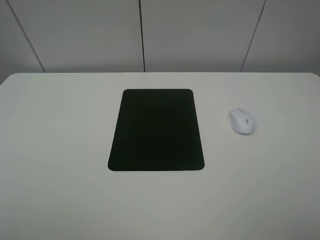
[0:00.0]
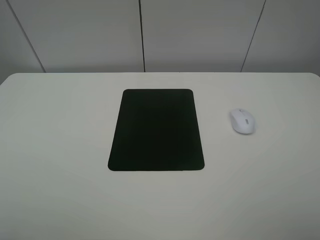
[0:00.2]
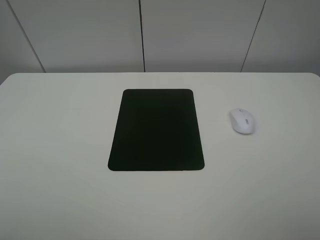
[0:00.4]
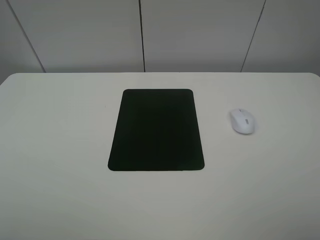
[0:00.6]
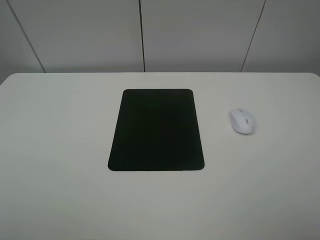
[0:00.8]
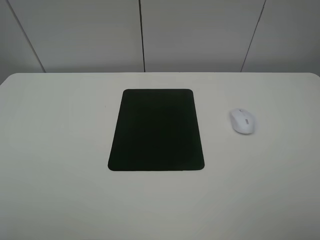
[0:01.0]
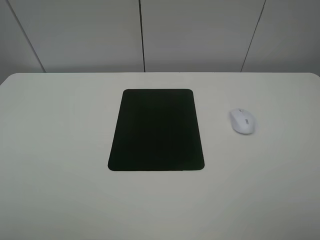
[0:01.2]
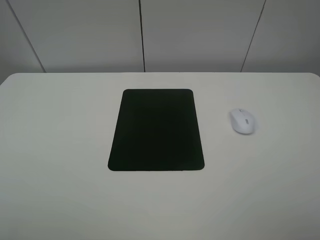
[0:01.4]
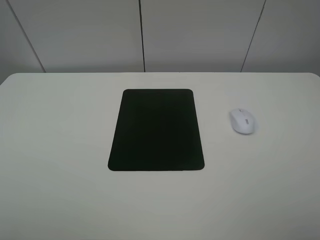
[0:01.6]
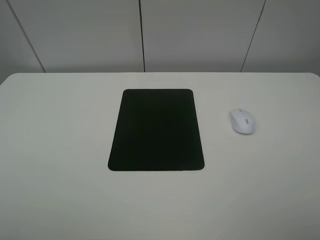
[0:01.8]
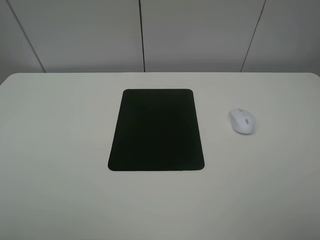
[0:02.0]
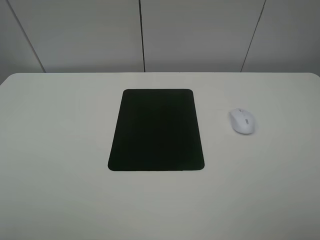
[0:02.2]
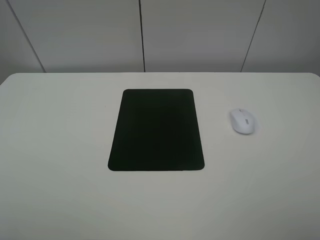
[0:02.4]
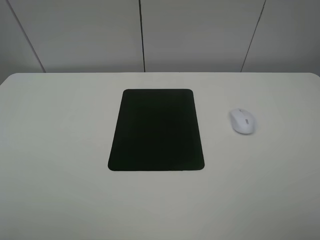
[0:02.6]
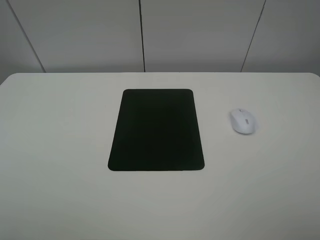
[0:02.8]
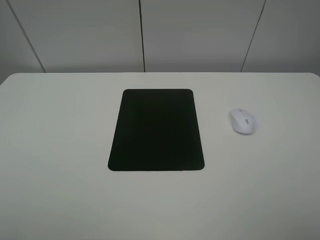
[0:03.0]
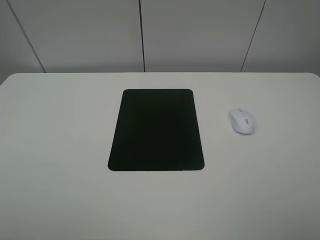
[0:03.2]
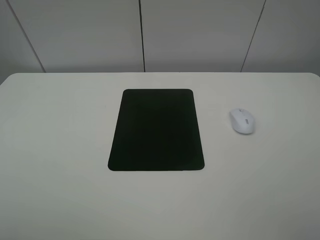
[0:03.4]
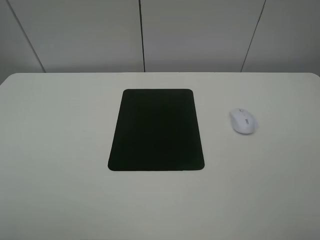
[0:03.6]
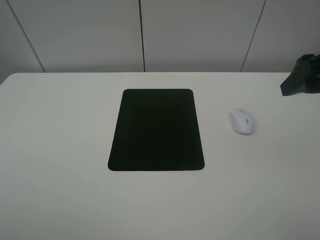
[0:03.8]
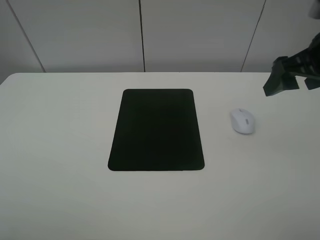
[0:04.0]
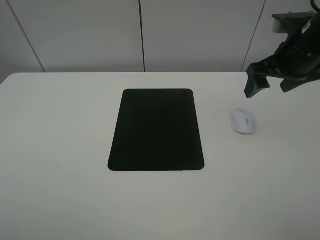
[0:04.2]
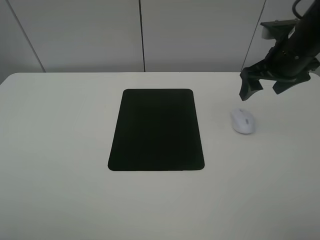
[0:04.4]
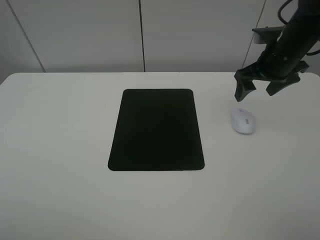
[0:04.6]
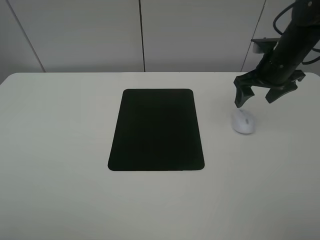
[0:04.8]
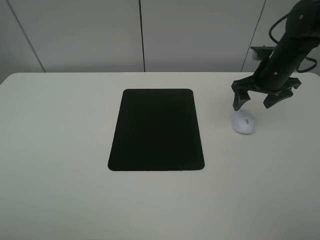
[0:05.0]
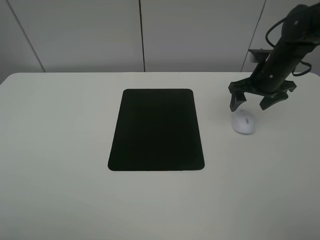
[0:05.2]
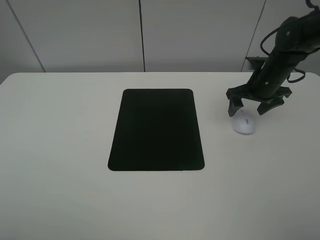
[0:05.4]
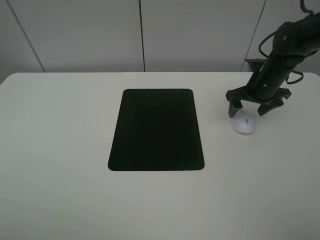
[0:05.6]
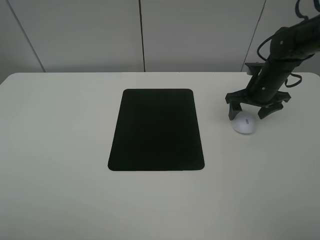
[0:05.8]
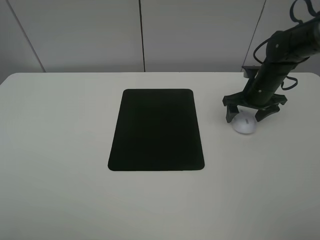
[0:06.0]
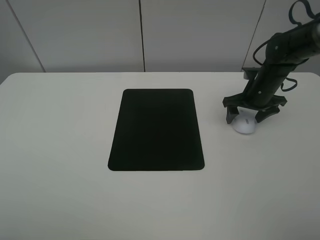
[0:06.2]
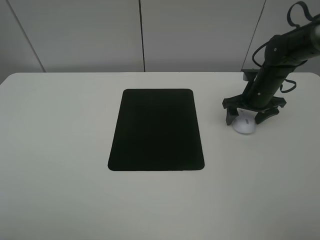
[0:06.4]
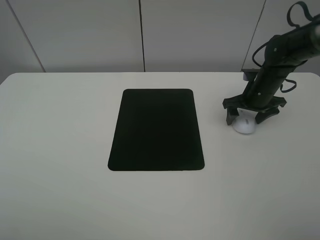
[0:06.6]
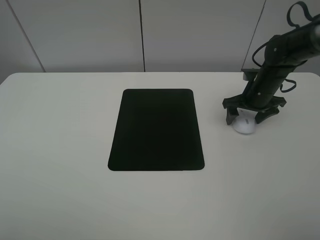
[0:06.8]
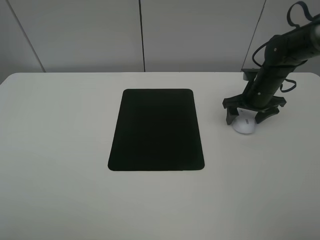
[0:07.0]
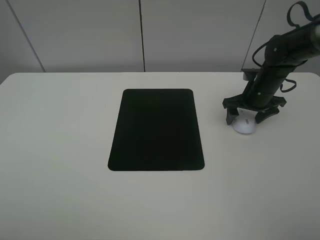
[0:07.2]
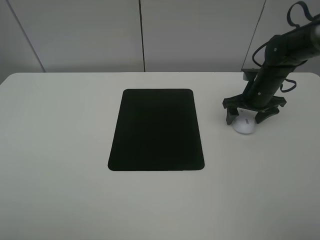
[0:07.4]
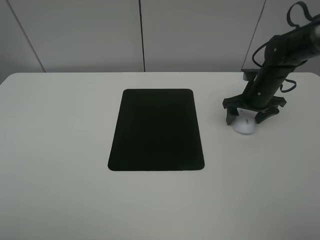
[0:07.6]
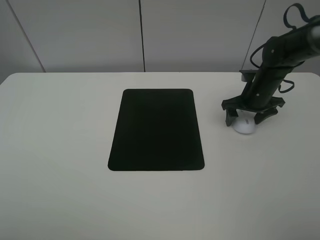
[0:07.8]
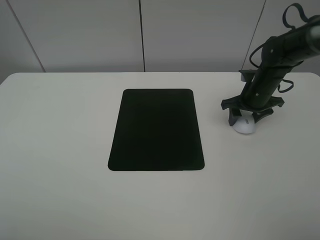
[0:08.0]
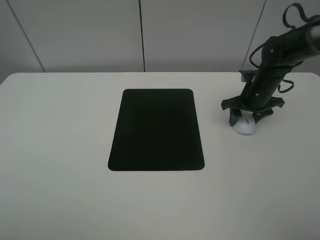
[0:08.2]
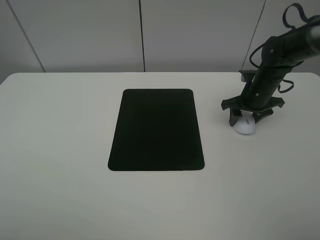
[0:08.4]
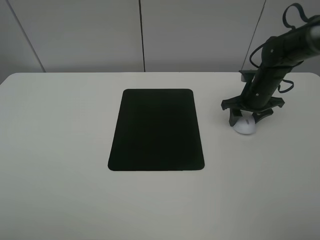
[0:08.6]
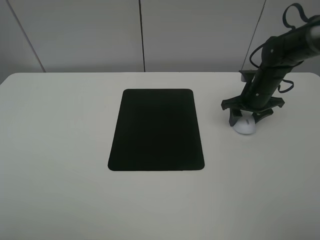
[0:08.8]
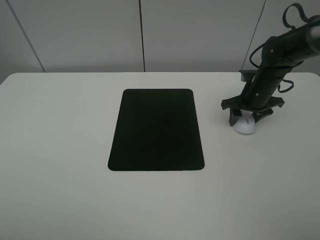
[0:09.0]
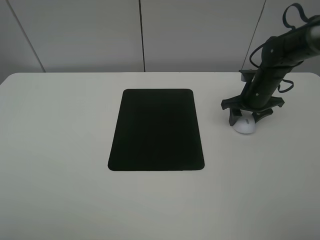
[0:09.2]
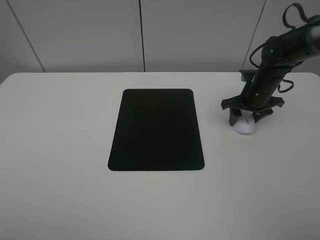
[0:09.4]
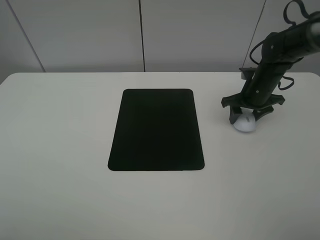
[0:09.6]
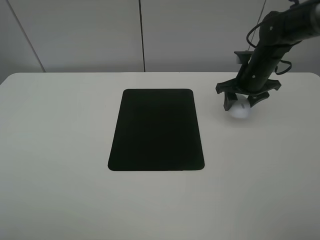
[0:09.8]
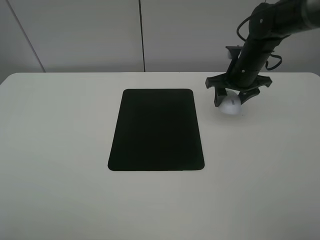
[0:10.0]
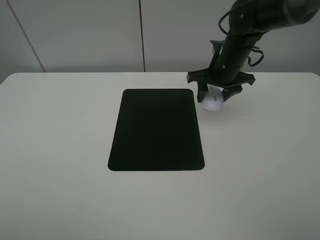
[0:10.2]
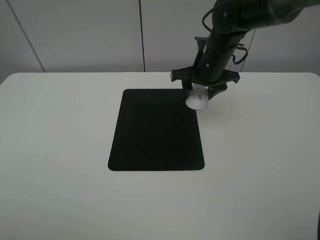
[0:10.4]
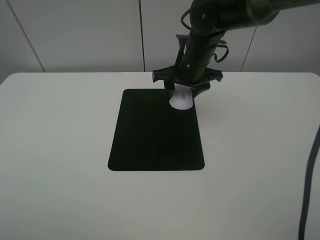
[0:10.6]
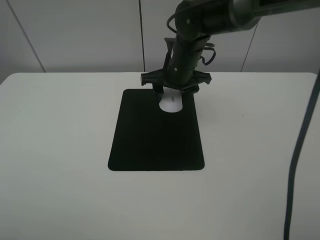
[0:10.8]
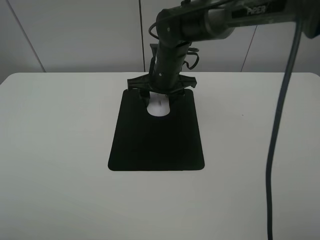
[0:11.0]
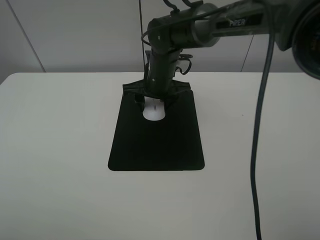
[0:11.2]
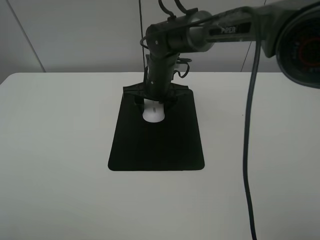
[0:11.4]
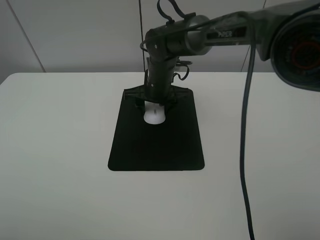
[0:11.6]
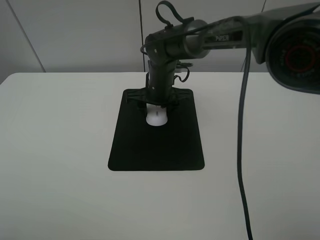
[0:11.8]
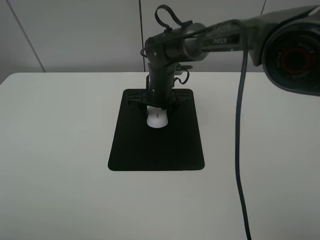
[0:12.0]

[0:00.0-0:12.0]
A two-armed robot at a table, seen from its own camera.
Step, 0:00.0 to 0:08.0: Grasp the mouse with the right gripper.
0:00.0 to 0:03.0: Neither gripper changes place.
0:03.0 to 0:04.4: The right gripper moves forward, about 35 cm.
0:04.4 to 0:06.0: The right gripper heads downward, covering approximately 10 cm.
0:06.0 to 0:07.6: Both grippers stay put.
0:07.6 to 0:09.0: The right gripper closes up.
0:09.0 to 0:10.4: The right gripper shifts about 15 cm to the left and upward.
0:10.4 to 0:12.0: The right gripper moves to the left and downward, roughly 15 cm.

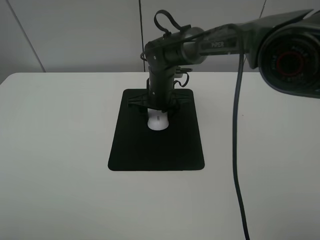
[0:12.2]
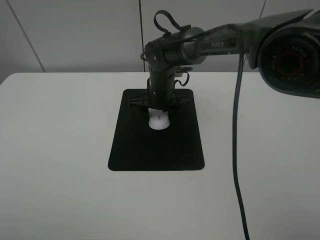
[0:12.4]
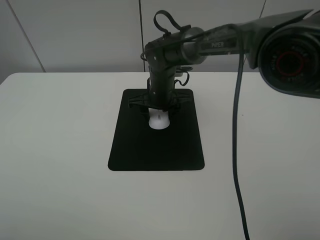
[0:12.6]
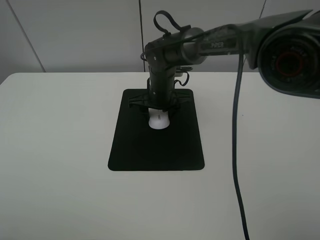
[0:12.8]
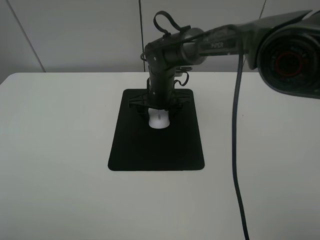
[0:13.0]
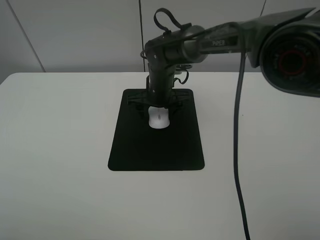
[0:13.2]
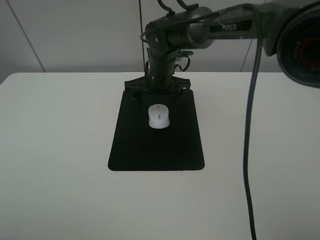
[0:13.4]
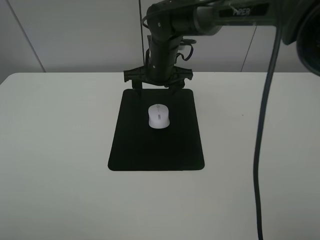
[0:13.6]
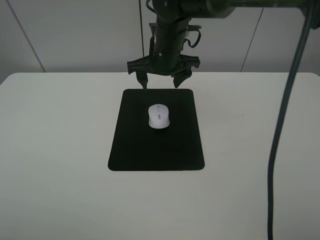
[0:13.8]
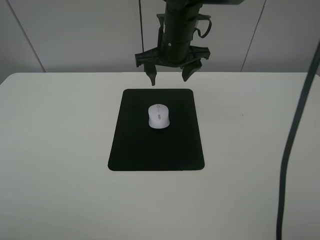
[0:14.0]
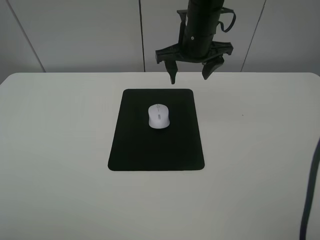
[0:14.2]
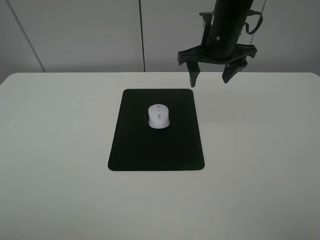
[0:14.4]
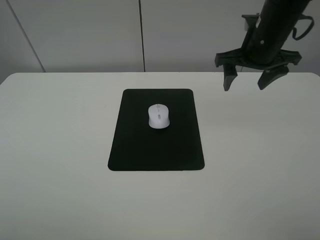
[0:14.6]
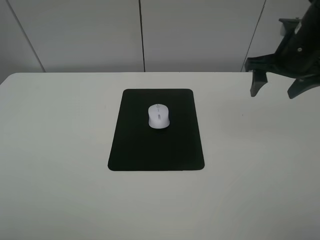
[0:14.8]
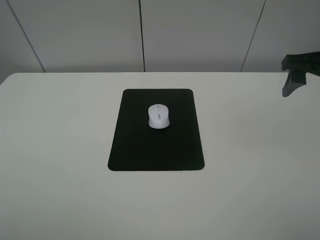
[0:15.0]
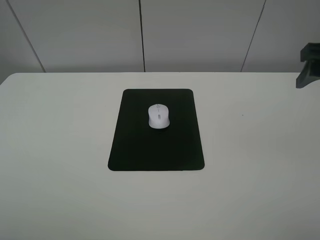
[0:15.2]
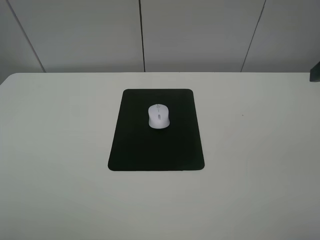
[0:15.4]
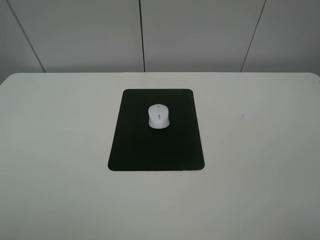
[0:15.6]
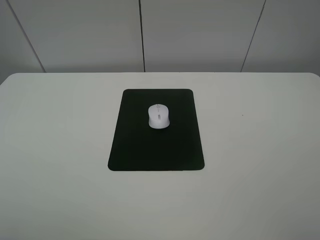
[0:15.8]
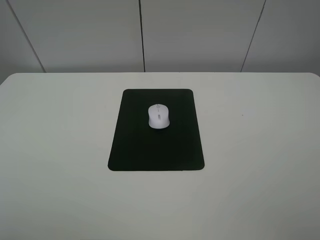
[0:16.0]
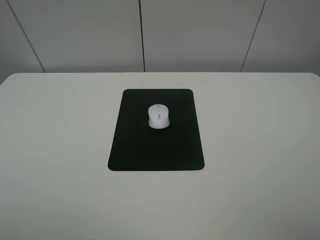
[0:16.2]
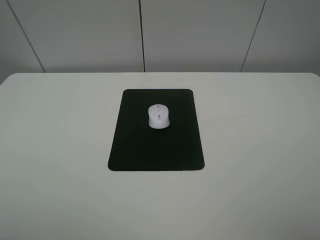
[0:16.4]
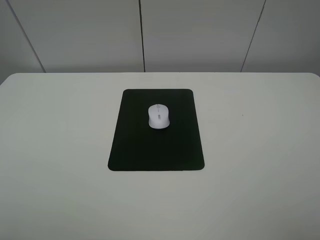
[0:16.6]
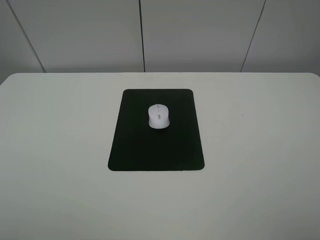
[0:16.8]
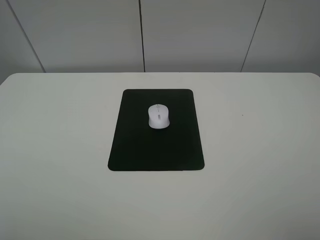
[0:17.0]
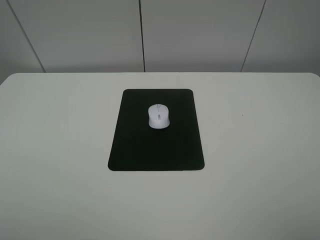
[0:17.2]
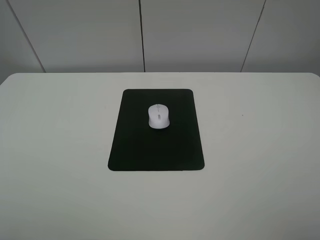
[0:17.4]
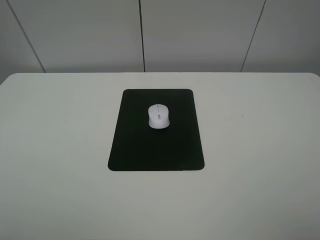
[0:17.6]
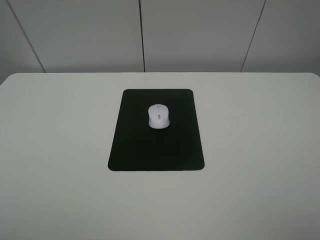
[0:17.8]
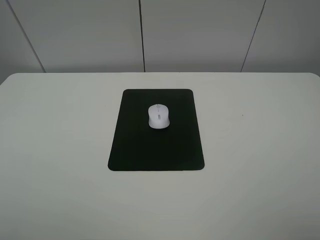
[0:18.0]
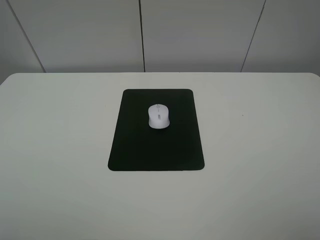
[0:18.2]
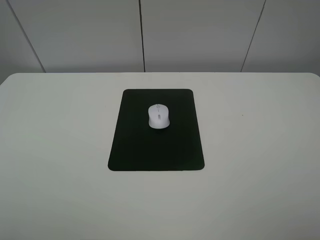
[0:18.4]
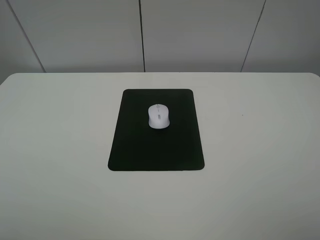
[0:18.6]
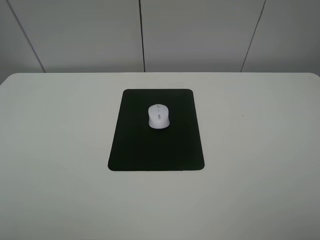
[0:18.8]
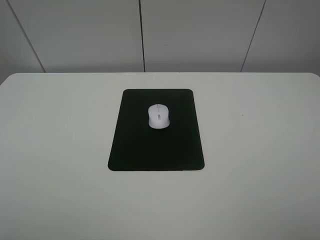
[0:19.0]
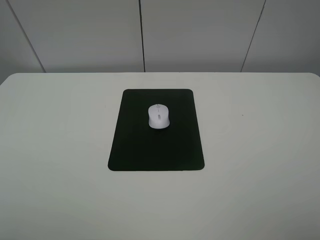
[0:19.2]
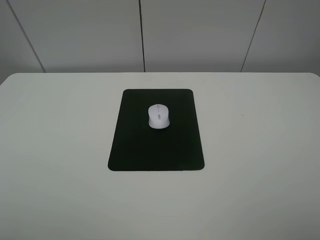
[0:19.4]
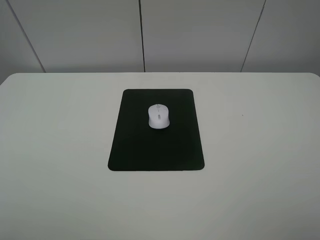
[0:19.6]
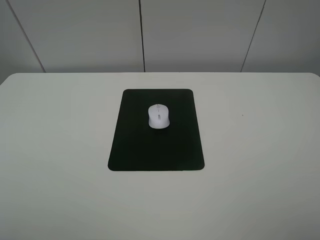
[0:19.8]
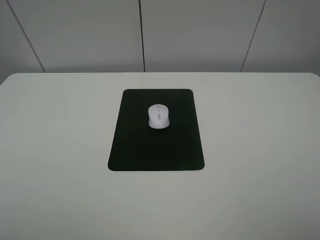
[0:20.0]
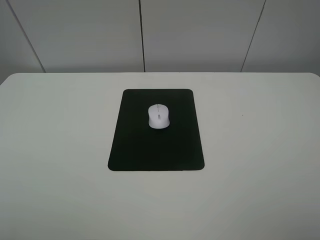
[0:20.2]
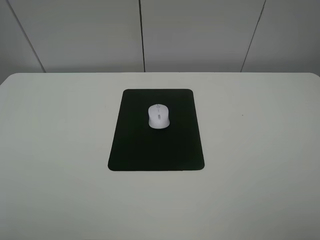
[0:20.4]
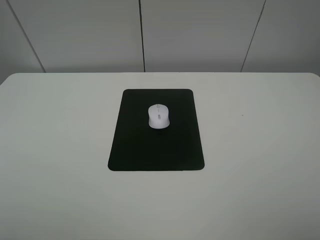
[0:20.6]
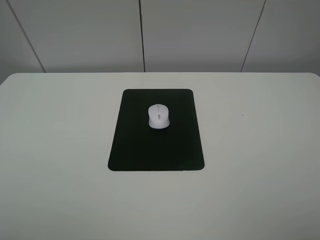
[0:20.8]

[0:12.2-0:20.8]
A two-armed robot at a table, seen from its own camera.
0:12.2 to 0:13.6: The right gripper travels upward by about 10 cm, and opens its fingers.
0:13.6 to 0:15.0: The right gripper heads to the right and backward, covering about 30 cm.
0:15.0 to 0:16.6: The right gripper shifts about 25 cm backward.
0:19.4 to 0:20.8: Both grippers stay about where they are.
